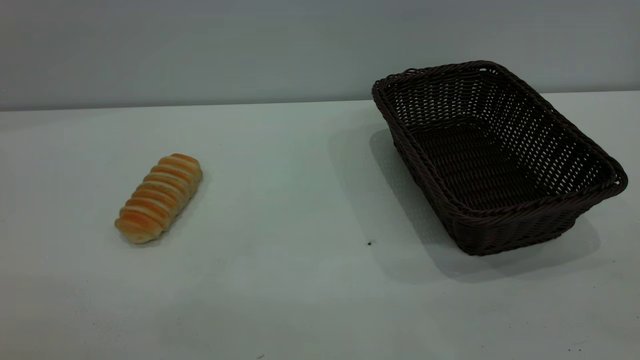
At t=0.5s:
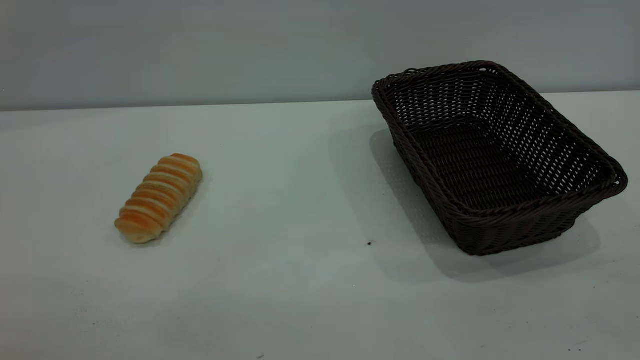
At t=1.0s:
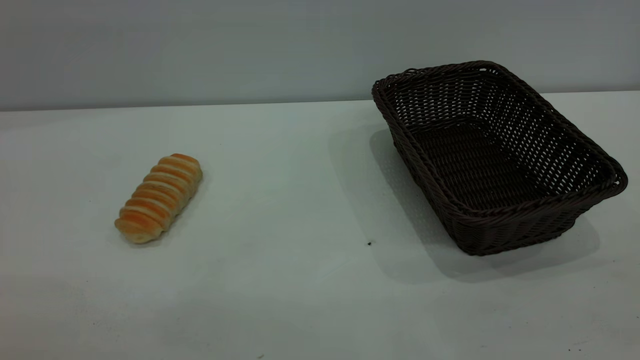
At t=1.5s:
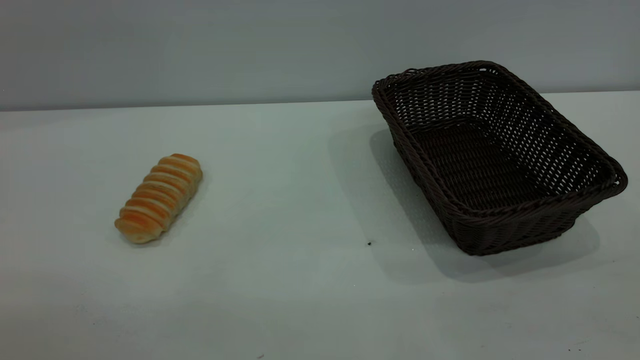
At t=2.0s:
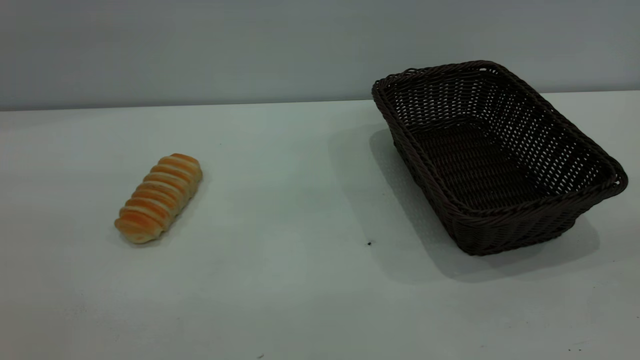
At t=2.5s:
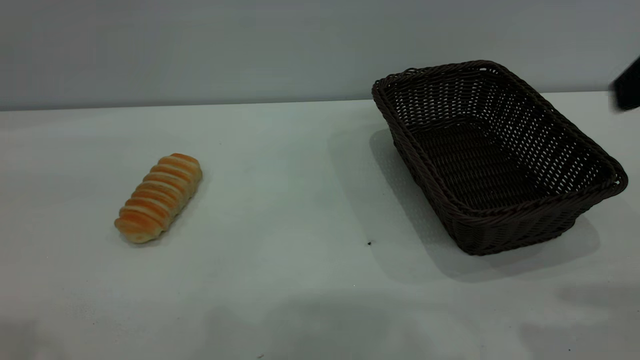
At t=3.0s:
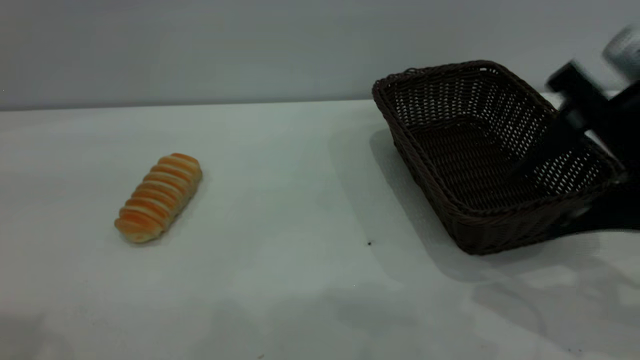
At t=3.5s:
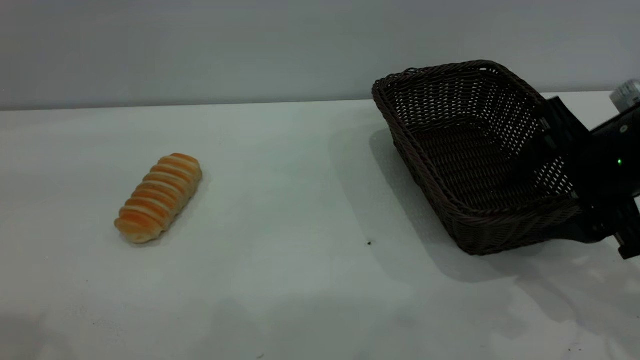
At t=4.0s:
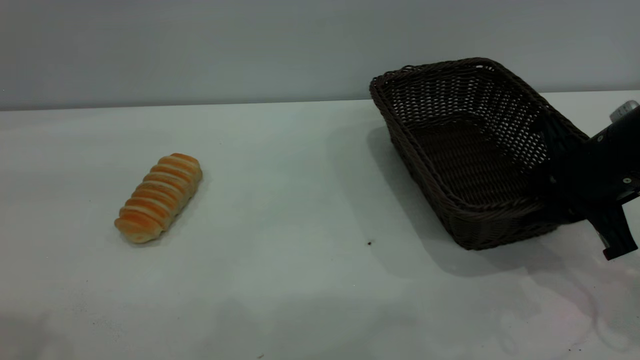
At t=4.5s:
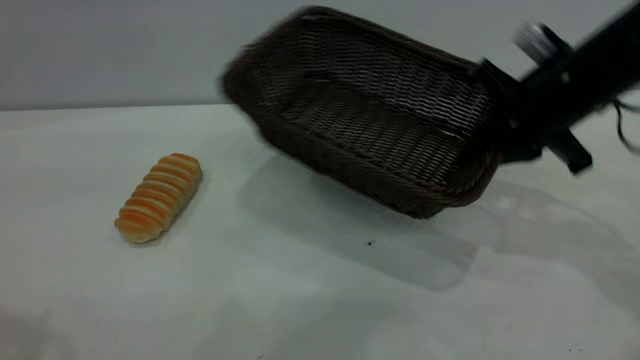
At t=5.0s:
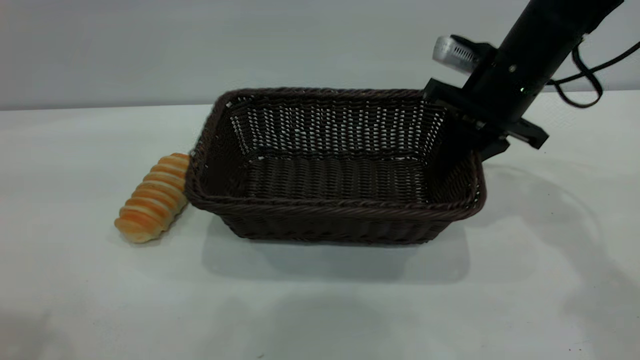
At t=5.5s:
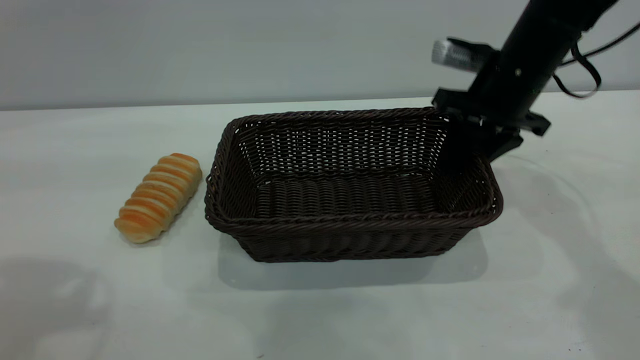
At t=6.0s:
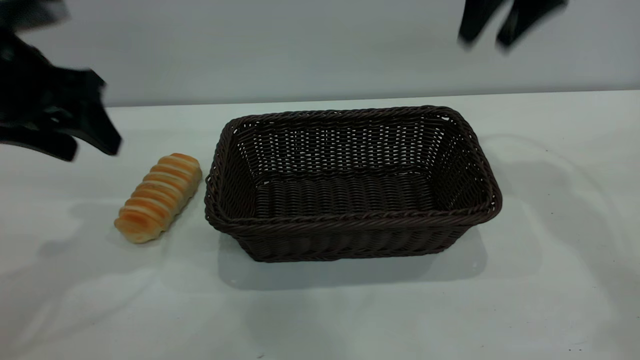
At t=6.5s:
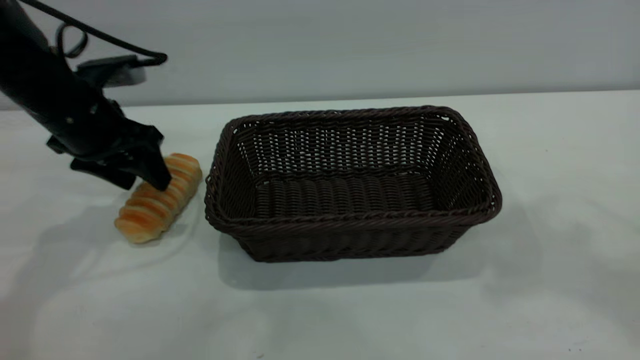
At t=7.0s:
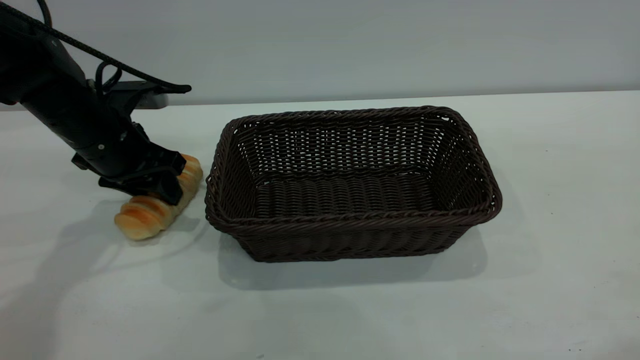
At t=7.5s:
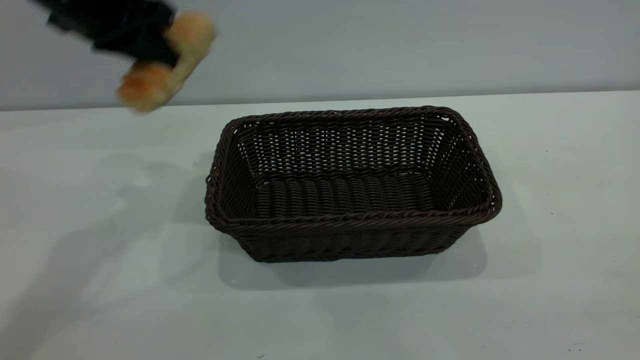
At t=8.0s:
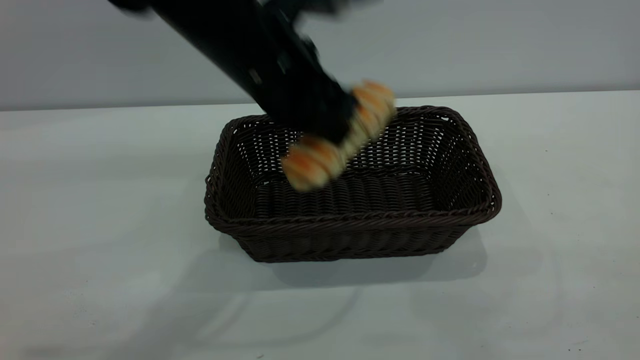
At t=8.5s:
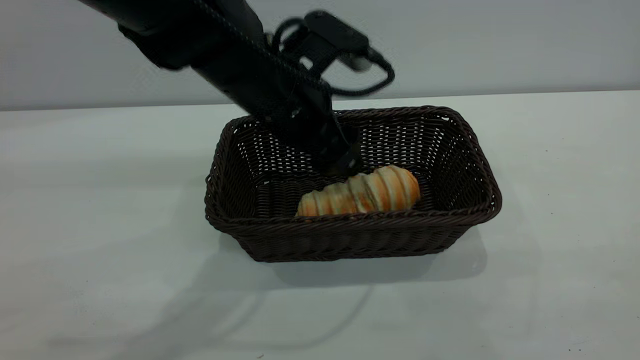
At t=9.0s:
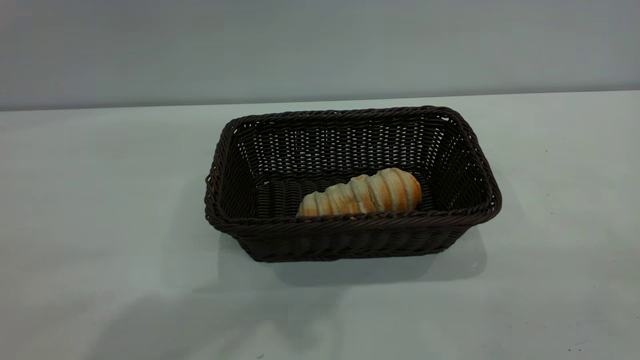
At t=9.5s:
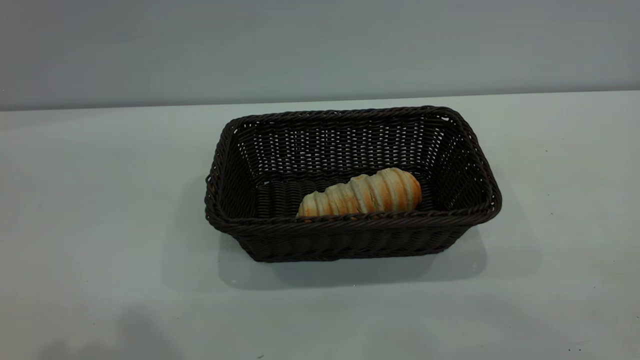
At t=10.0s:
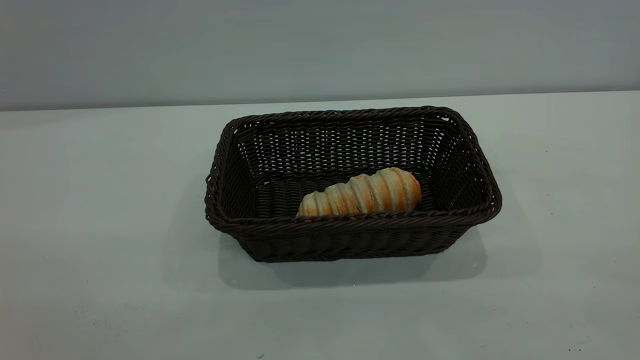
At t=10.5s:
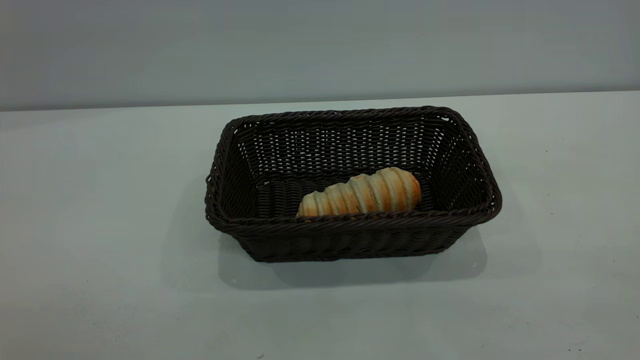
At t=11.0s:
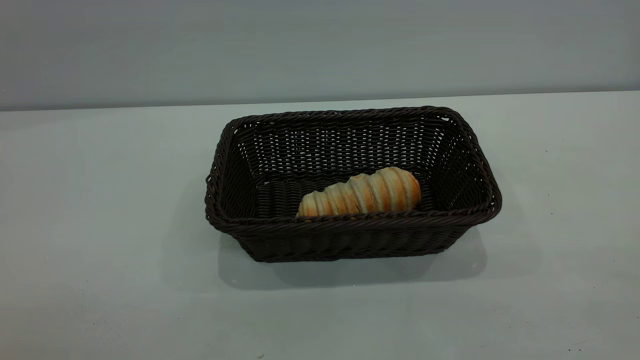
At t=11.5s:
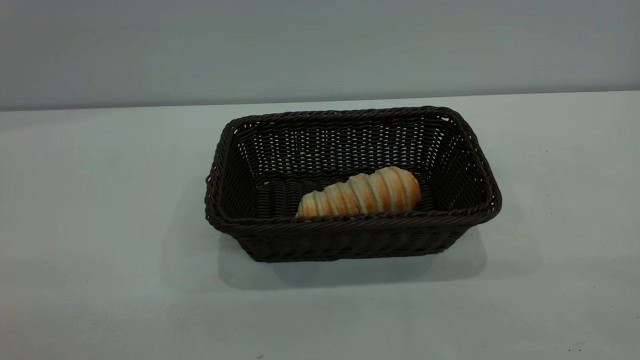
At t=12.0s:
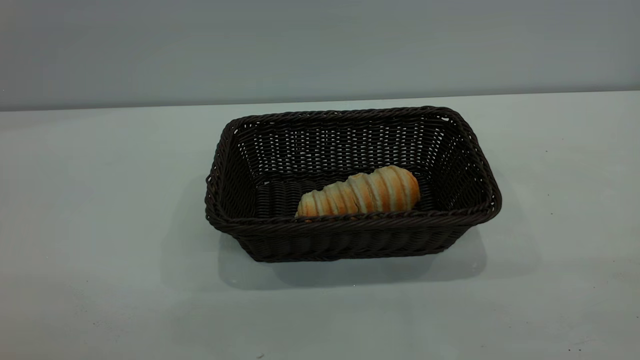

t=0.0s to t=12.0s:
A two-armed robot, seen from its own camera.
Task of the whole recording: One hand grasps the black basket and places it in the middle of the table, while the other hand picks up the long bread and puts it into the black basket.
Step, t=0.0s to t=5.5s: Move the basket to the center of view.
Step, t=7.5s to t=8.5s: place the bread into the basket.
t=2.0s to t=4.0s: The right gripper travels downward and forward by about 35 cm, and closes its fingers.
t=4.0s to t=6.0s: The right gripper moves upward and forward, about 25 cm, and opens, while the left gripper goes approximately 25 cm downward and forward.
t=6.0s to t=8.0s: The left gripper heads to the right, covering roughly 20 cm, and closes up, while the right gripper shifts some 40 cm backward.
t=8.0s to t=10.0s: The left gripper goes about 35 cm backward, to the left and upward, and opens up.

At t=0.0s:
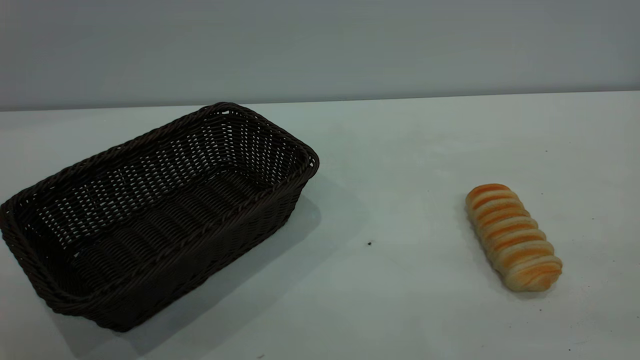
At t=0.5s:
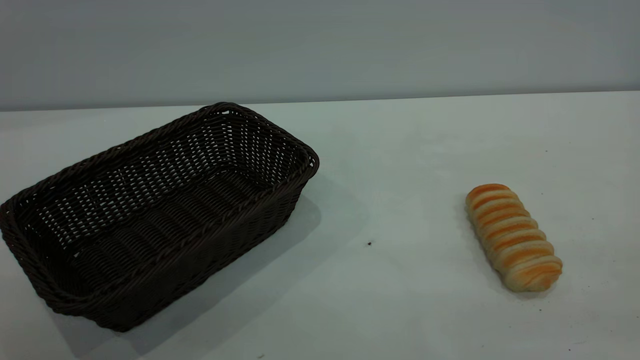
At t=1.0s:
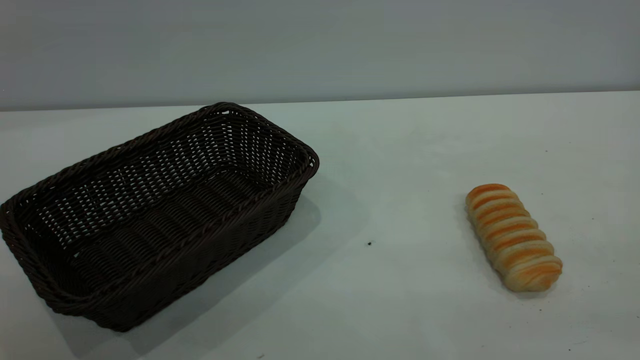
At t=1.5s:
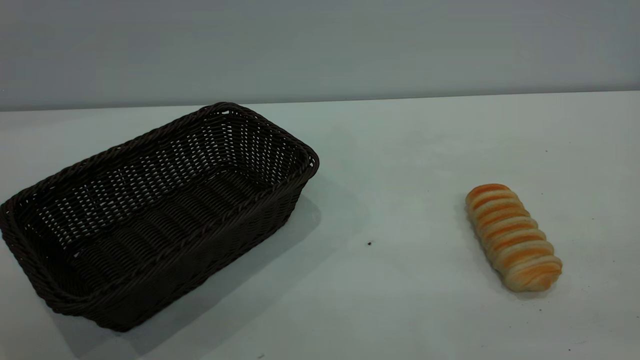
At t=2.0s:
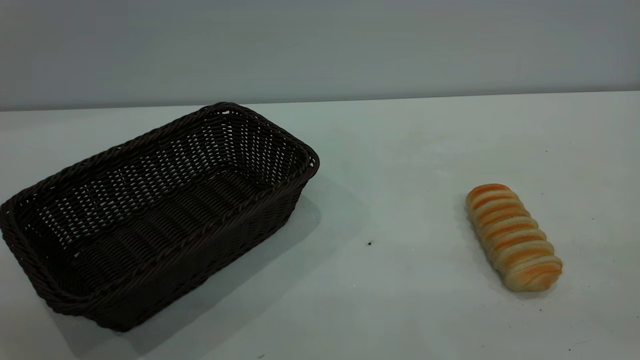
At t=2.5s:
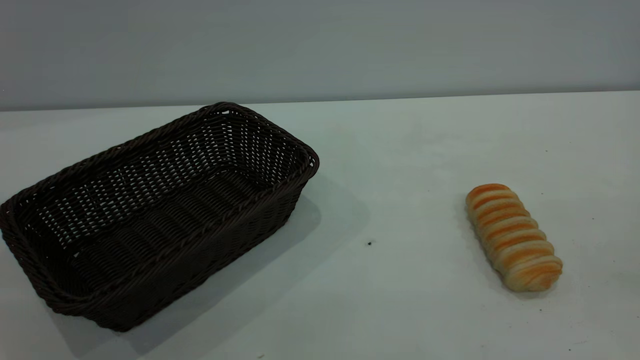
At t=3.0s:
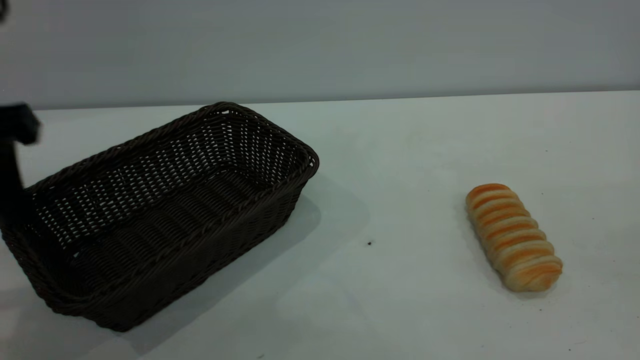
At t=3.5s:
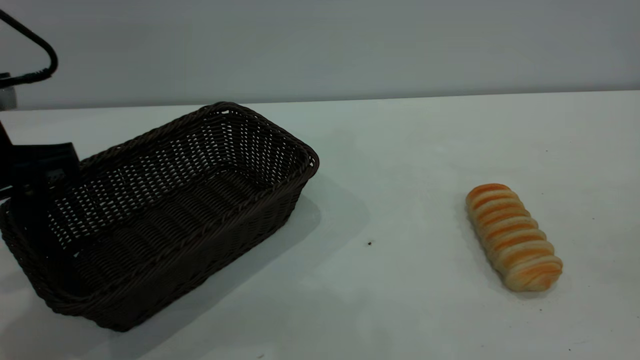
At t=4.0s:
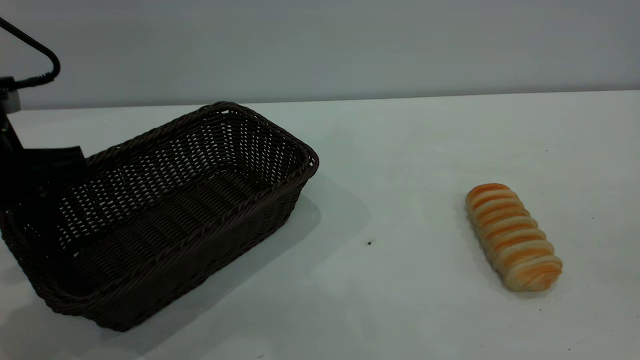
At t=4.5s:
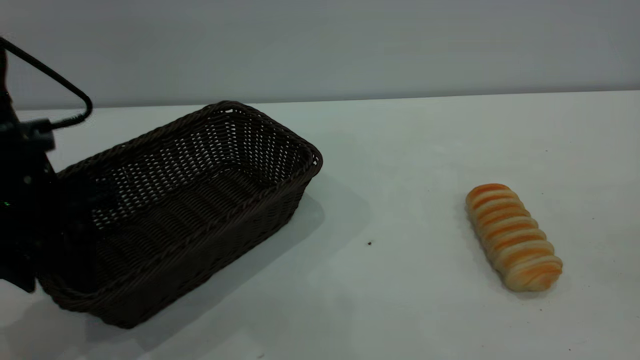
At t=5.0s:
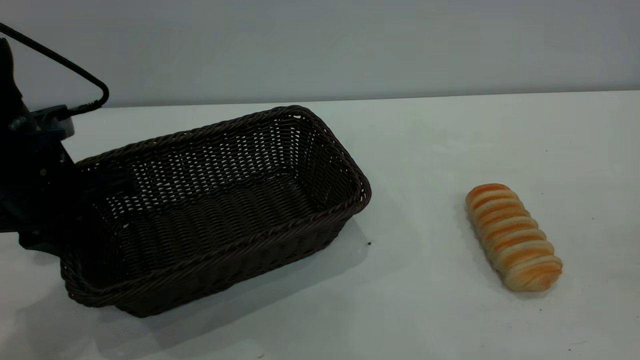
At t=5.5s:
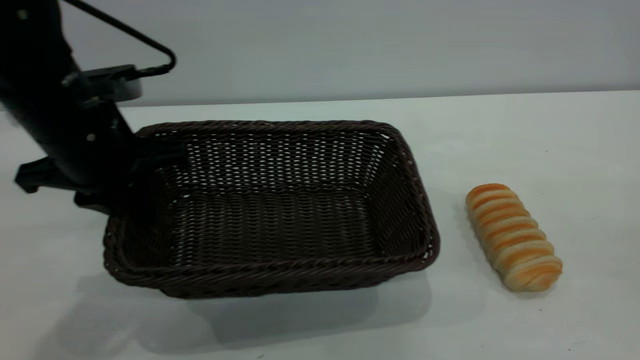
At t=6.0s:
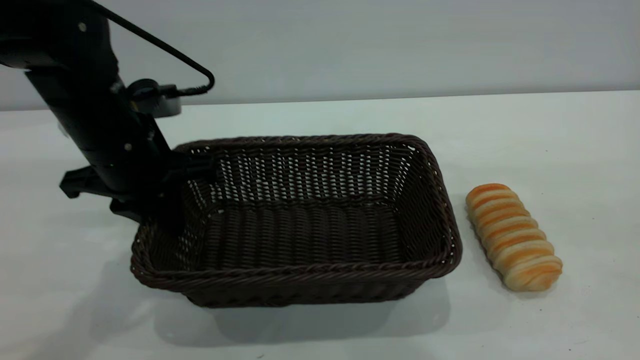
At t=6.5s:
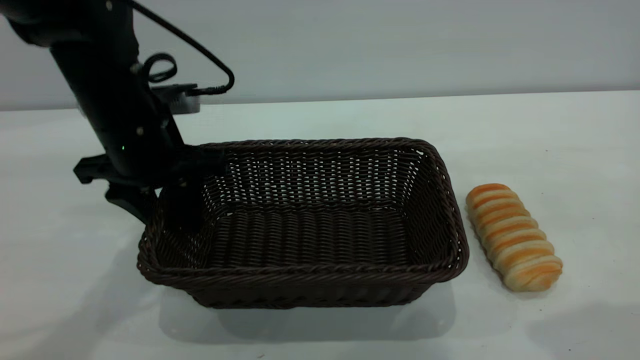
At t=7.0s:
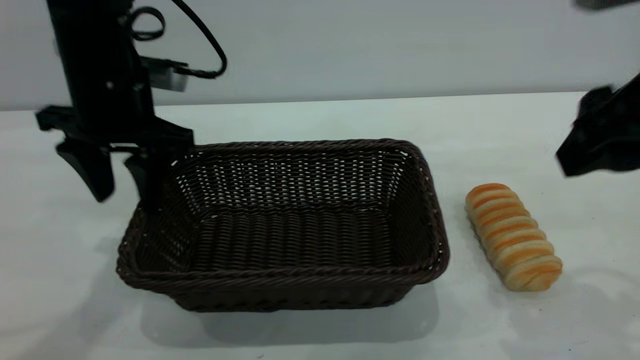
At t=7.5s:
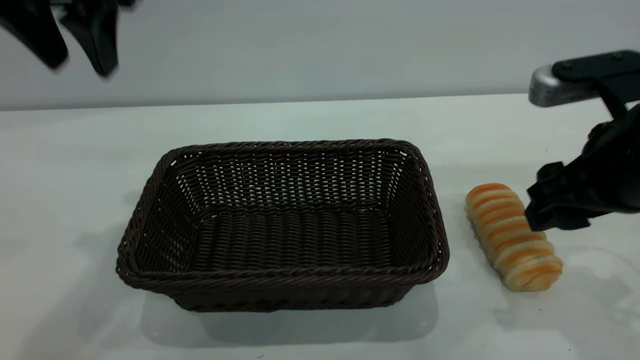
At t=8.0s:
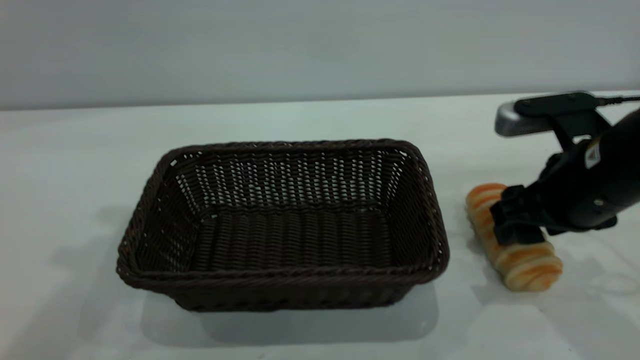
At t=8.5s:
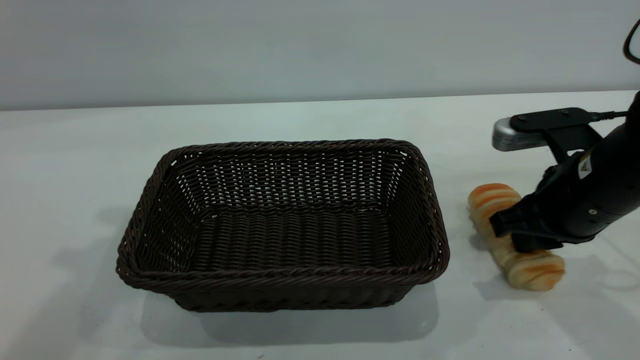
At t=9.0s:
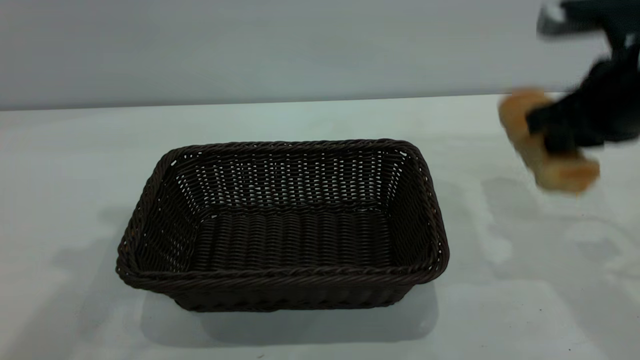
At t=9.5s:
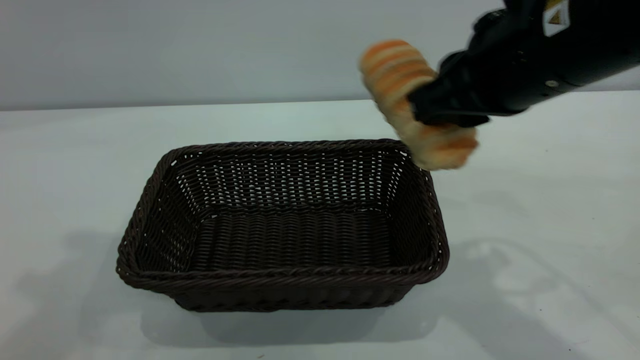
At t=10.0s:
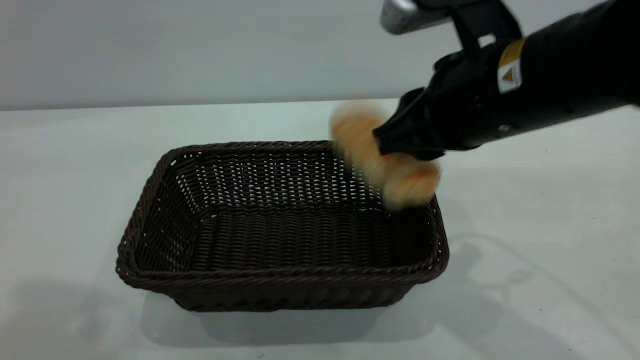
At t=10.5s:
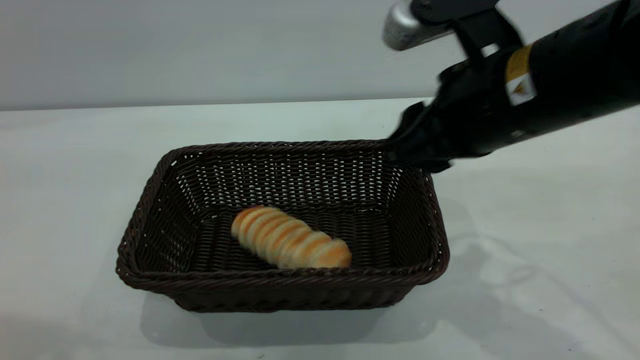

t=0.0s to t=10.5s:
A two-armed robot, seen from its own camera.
Task of the whole recording: One hand grasps the black basket and places it in the middle of the table, while the other hand picks up the long bread and puts it into the black basket.
Step, t=0.0s to t=7.0s: Move the basket to the center of view.
t=2.0s to t=4.0s: The left gripper goes about 35 cm forward and downward.
t=4.0s to t=6.5s: The right gripper shifts about 15 cm forward, downward and to the left; the left gripper travels to the right and forward by approximately 10 cm, and closes and opens again.
t=6.5s to t=8.5s: The right gripper moves downward and forward, roughly 25 cm, and closes its fingers; the left gripper travels upward by approximately 25 cm.
t=8.5s to t=10.5s: The left gripper moves backward and upward, some 15 cm. Meanwhile the right gripper goes approximately 15 cm upward and to the left, and opens up.
